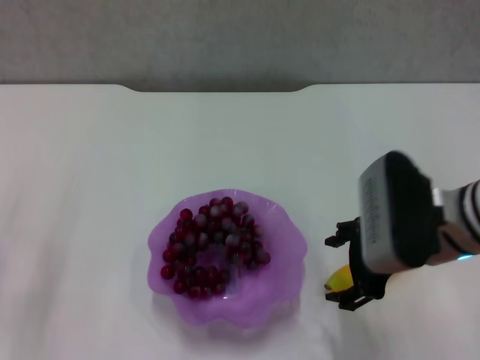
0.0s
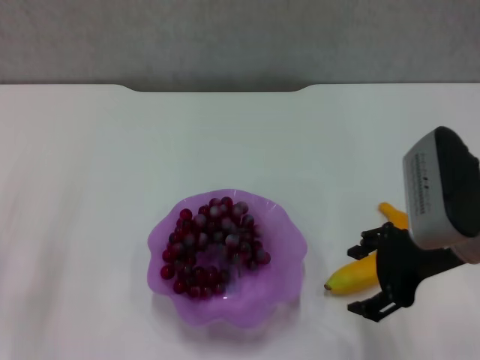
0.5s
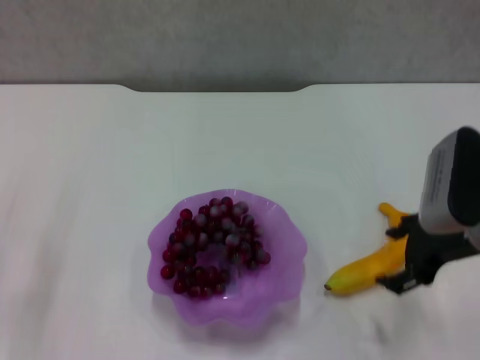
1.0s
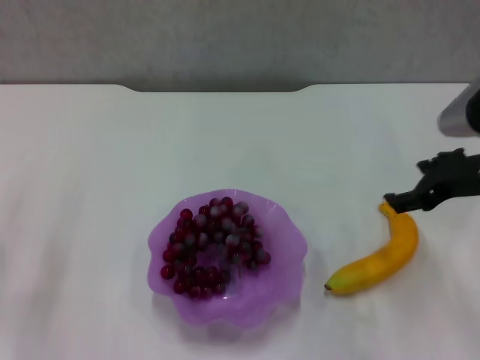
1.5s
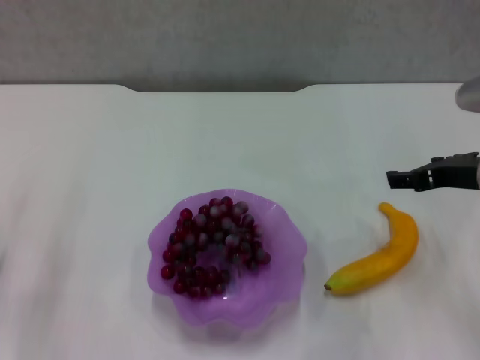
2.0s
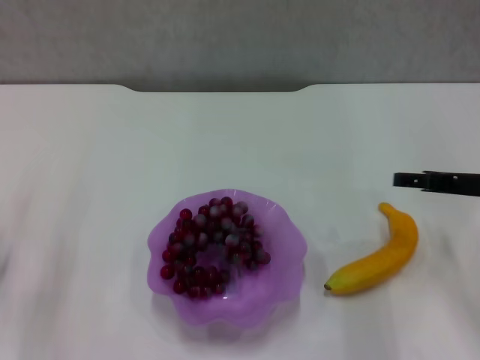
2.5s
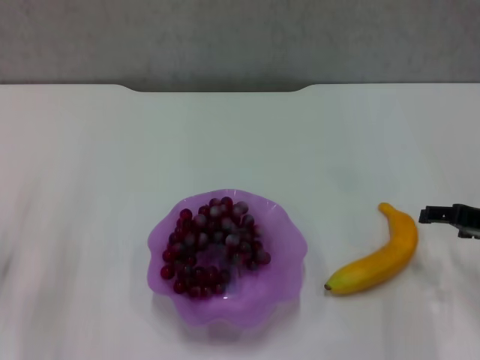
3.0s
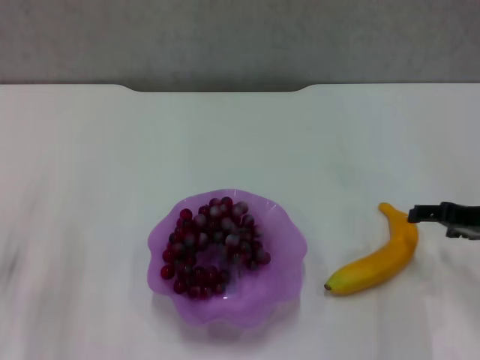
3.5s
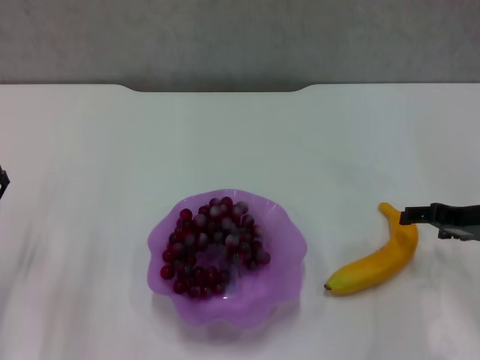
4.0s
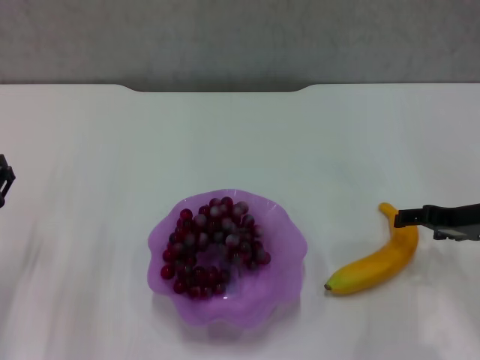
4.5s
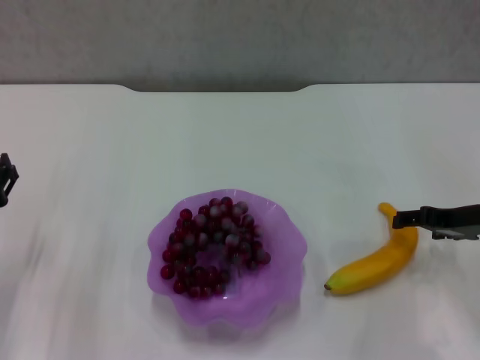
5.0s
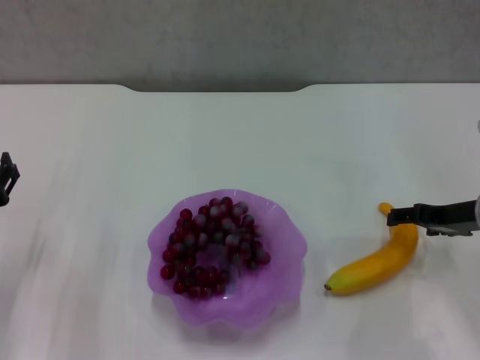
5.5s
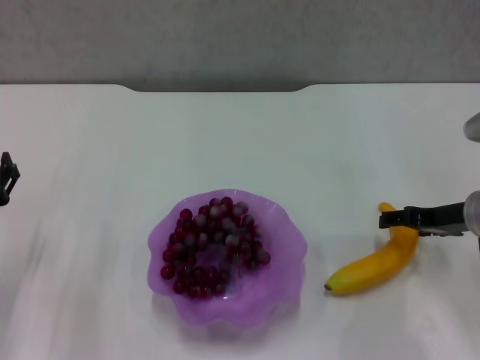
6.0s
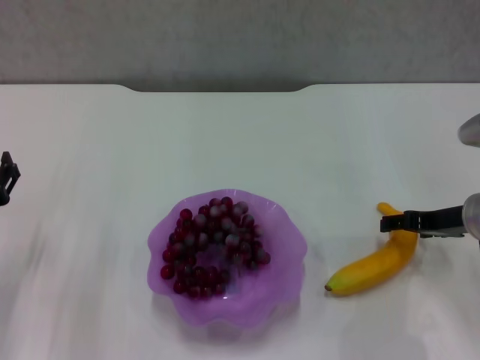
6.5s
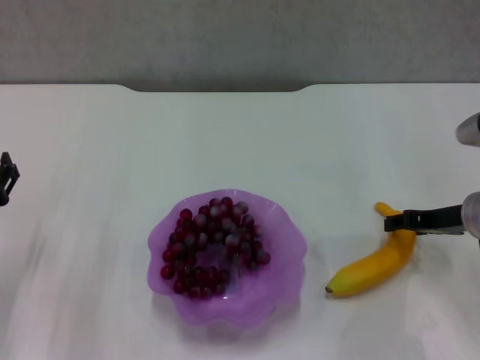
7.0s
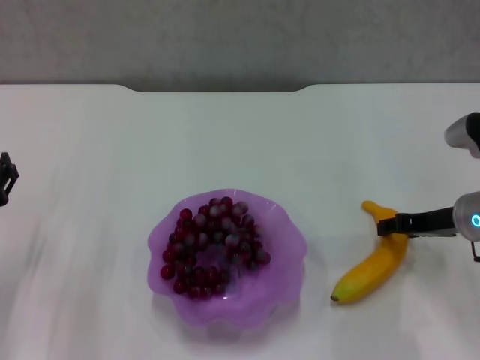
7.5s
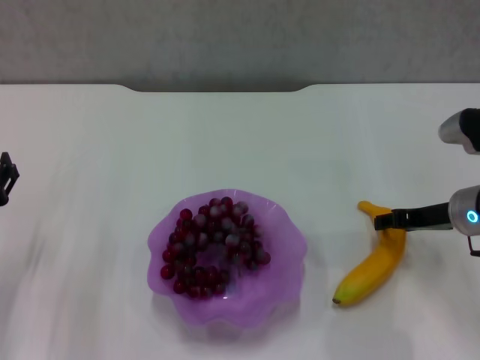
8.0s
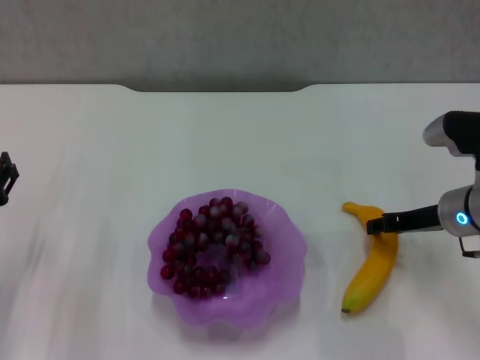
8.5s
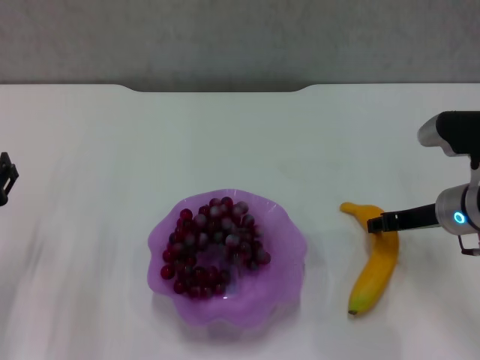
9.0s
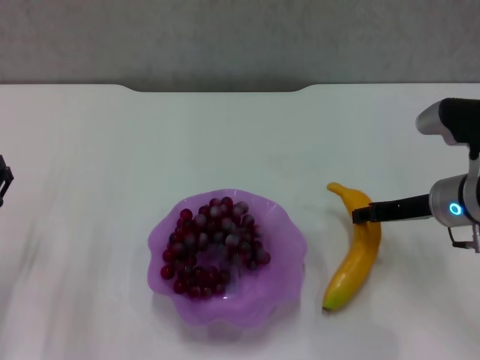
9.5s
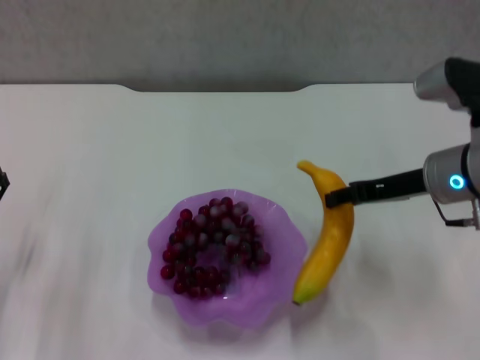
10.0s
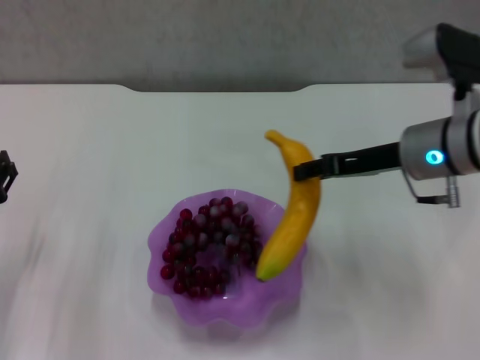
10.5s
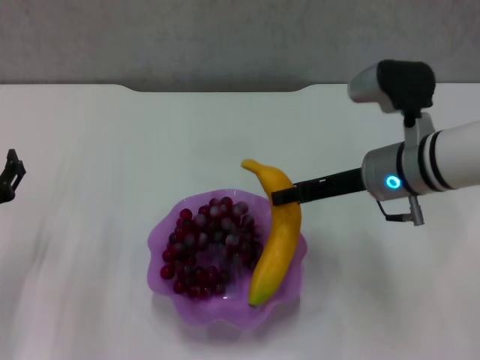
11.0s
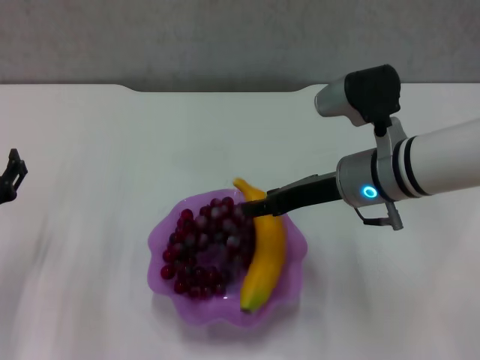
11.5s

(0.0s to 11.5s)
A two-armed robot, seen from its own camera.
Step, 0.0s - 8.5s: Grasp the banana with right gripper.
0.0s - 2.0s: The right gripper is displaced to the right by some 10 cm.
2.0s - 4.0s: The right gripper is displaced downward and to the right by approximately 10 cm.
4.0s - 6.0s: The grippers stay close to where they were, moving slightly.
6.0s - 7.5s: The right gripper closes its fingers.
7.5s - 9.5s: The grippers move only a little.
9.5s - 11.5s: The right gripper moves to the left, about 10 cm.

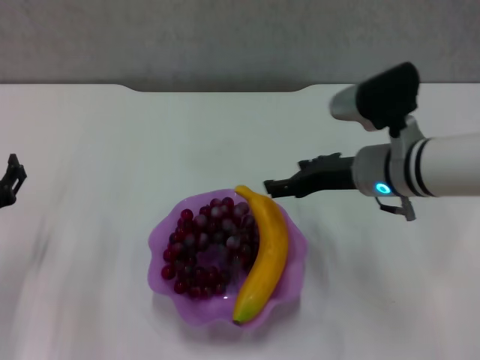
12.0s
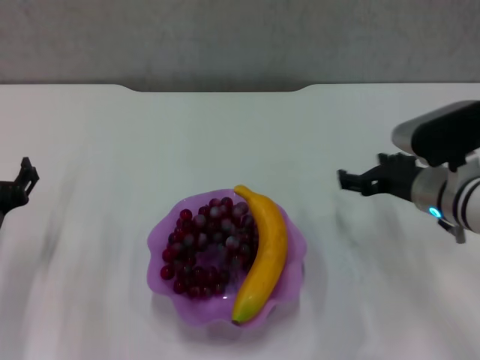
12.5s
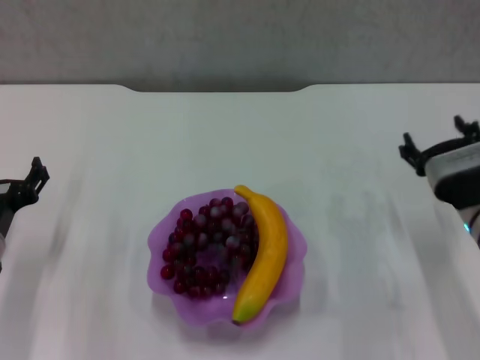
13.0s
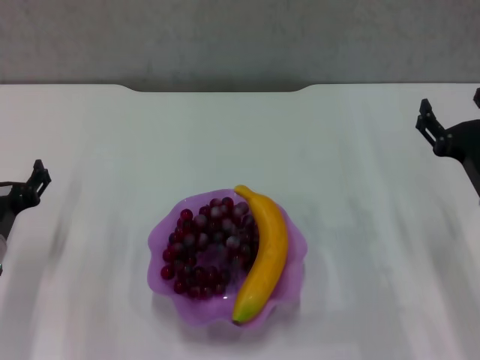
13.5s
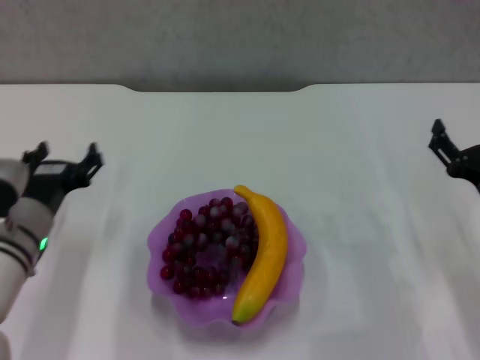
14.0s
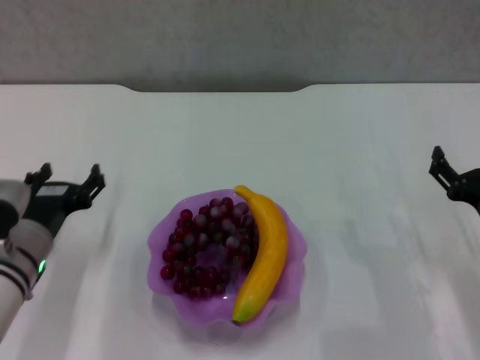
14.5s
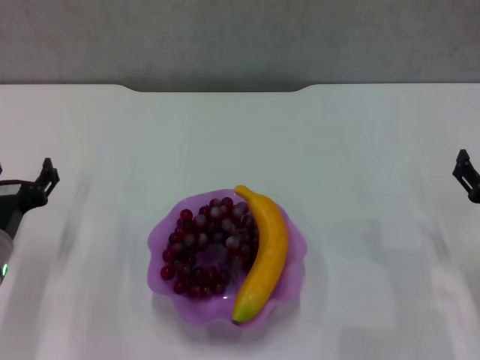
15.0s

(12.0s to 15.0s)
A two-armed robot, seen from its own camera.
12.0s - 13.5s: The right gripper heads to the right, backward and downward, covering roughly 15 cm.
13.5s - 15.0s: The right gripper ends up approximately 5 cm from where it was.
